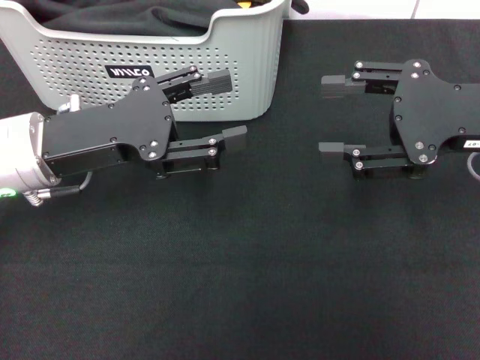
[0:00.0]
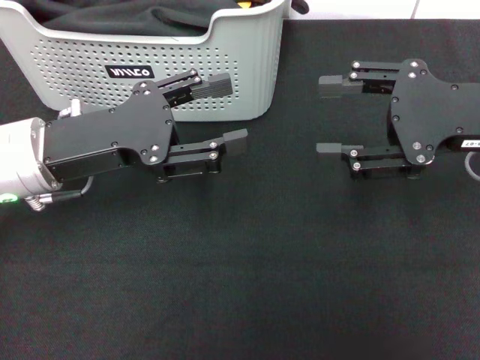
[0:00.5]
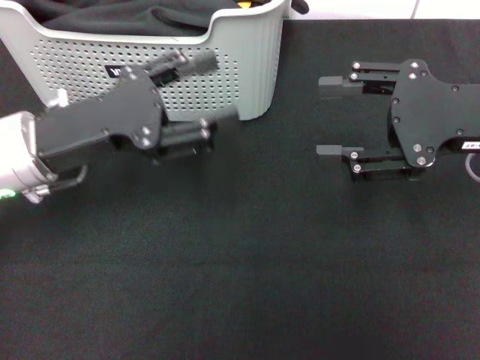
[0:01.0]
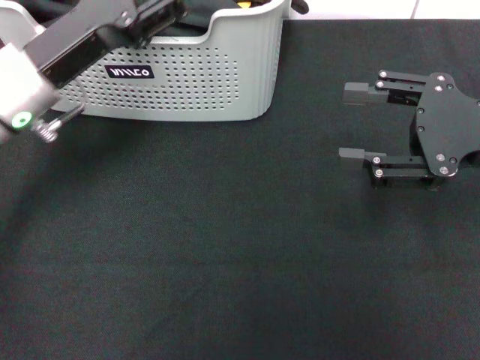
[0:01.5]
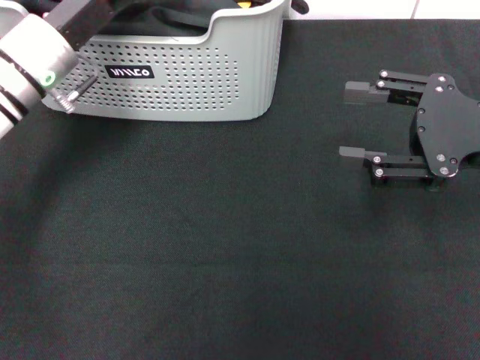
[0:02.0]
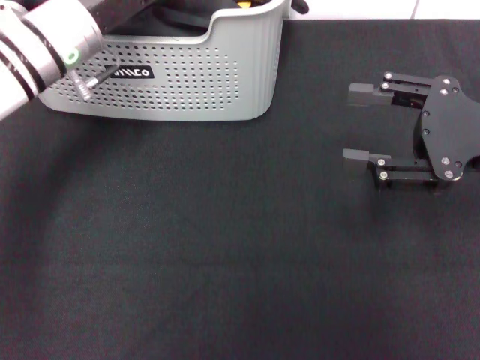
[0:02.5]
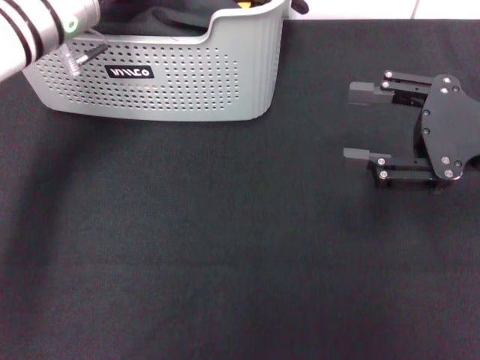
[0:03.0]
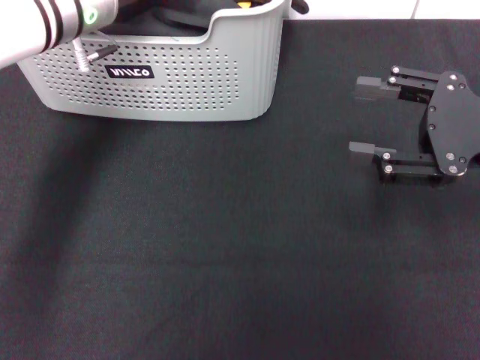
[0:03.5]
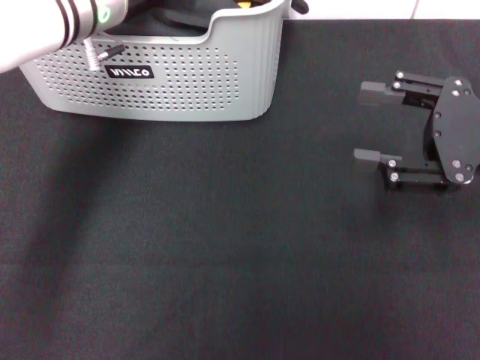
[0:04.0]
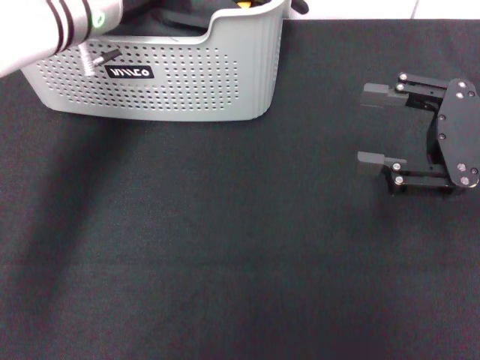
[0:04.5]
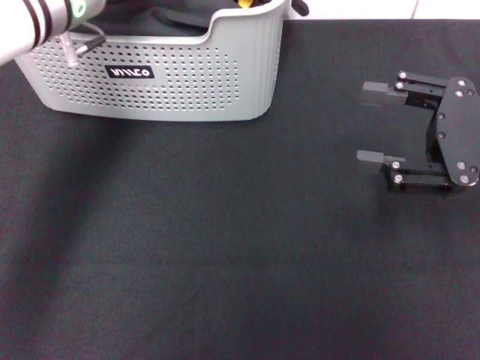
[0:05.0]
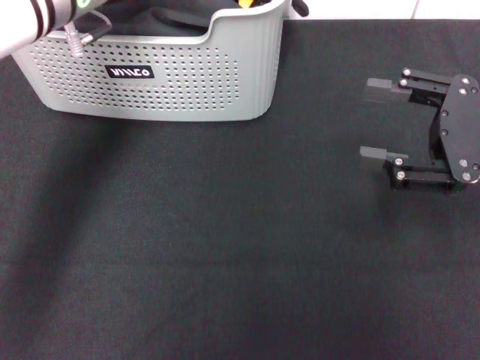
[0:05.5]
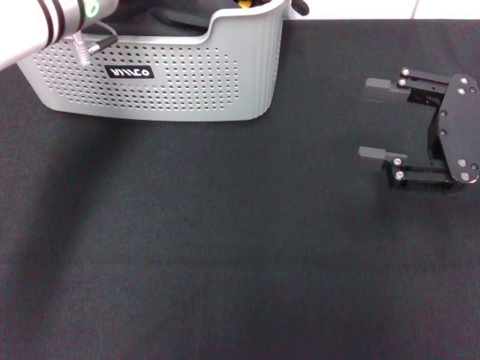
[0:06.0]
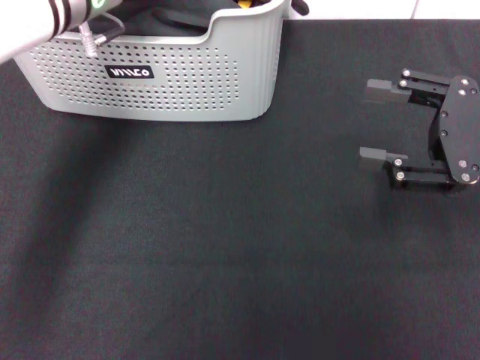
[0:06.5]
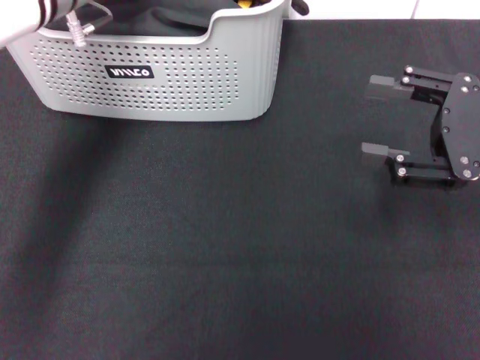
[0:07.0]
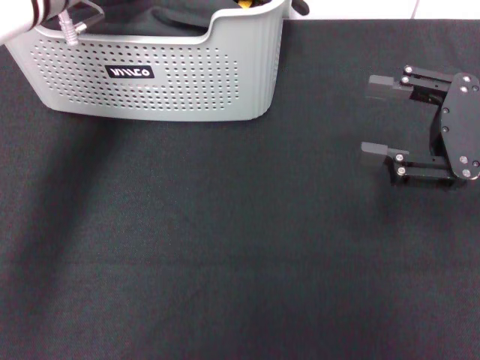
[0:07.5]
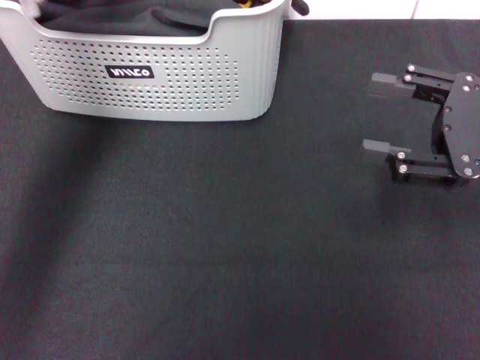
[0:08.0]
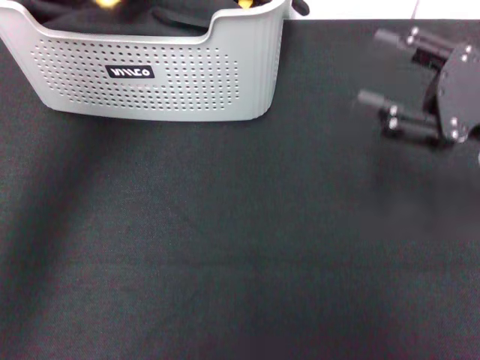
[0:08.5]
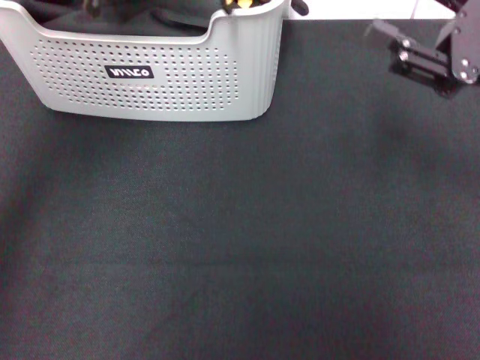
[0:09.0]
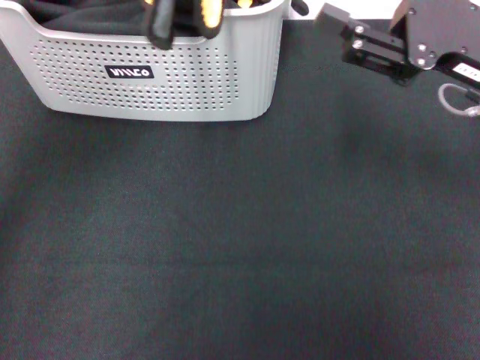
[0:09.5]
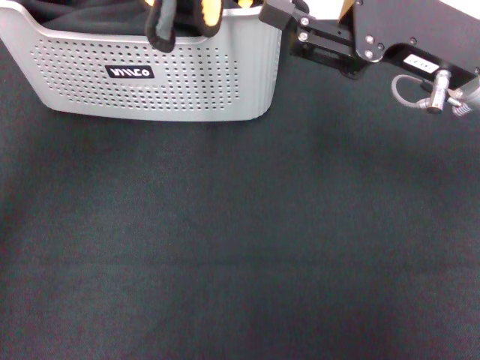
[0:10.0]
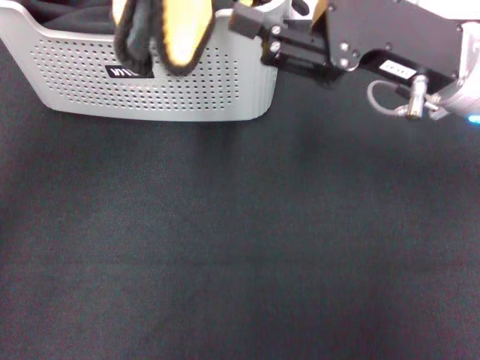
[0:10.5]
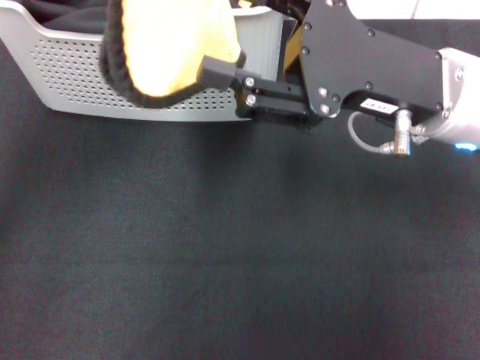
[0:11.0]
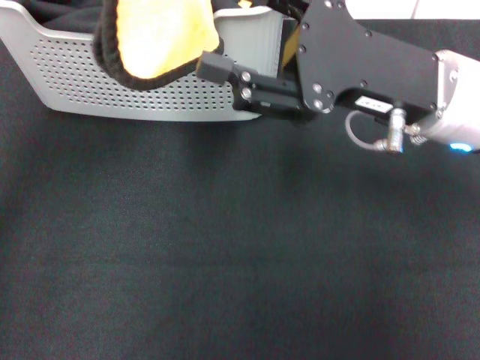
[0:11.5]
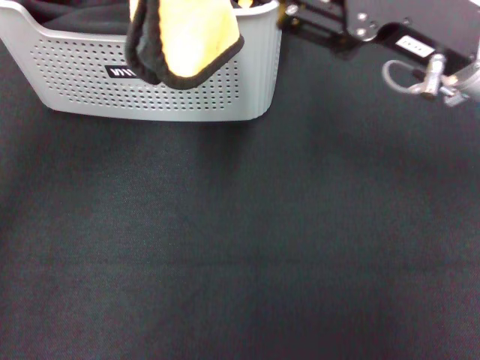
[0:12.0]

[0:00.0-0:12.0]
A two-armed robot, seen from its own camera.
Task of the whole recording: pick up the towel from the storage box and lay it flat on the black tablecloth.
Step, 0:00.0 to 0:08.0: Pick up a towel with the left gripper.
0:00.0 to 0:02.0: The left gripper heads forward, covering roughly 10 cm.
0:02.0 to 0:04.0: The left gripper moves to the right and upward, some 10 cm.
0:04.0 to 0:06.0: The left gripper closes.
0:06.0 to 0:08.0: The left gripper travels upward by about 5 cm.
0:08.0 to 0:10.0: The left gripper goes some 15 cm backward and upward, while the right gripper heads to the left, covering approximately 10 cm.
0:10.0 to 0:12.0: The grippers stay close to where they were, moving slightly.

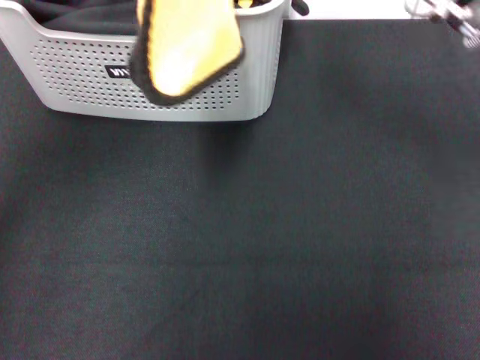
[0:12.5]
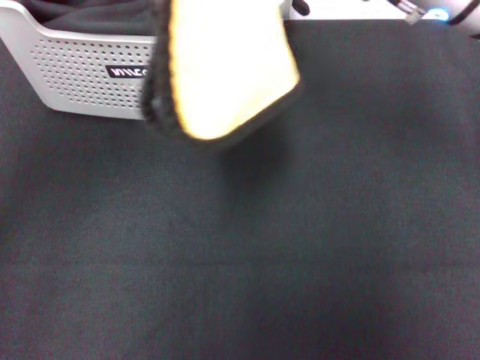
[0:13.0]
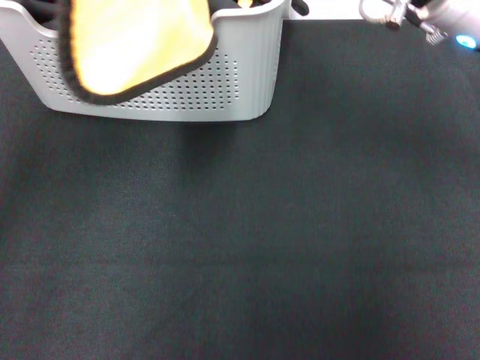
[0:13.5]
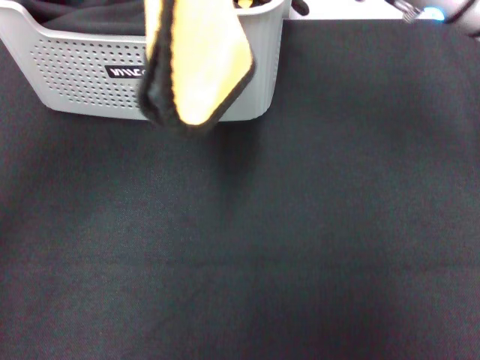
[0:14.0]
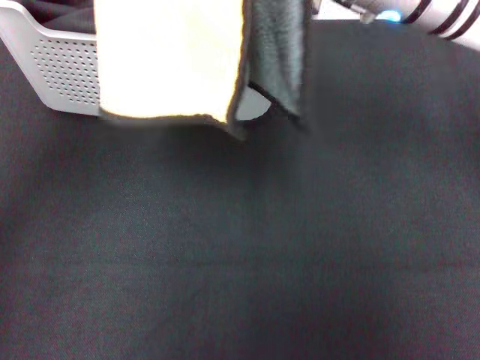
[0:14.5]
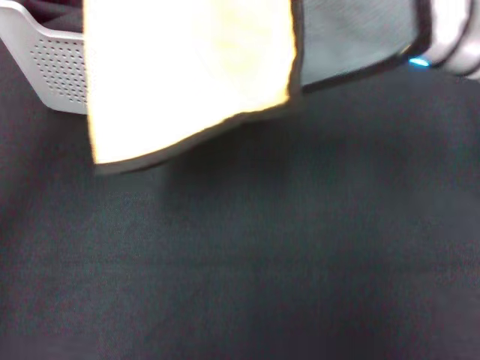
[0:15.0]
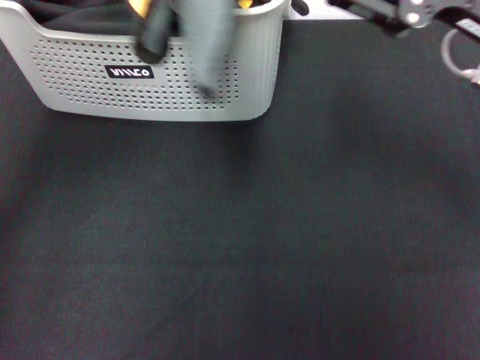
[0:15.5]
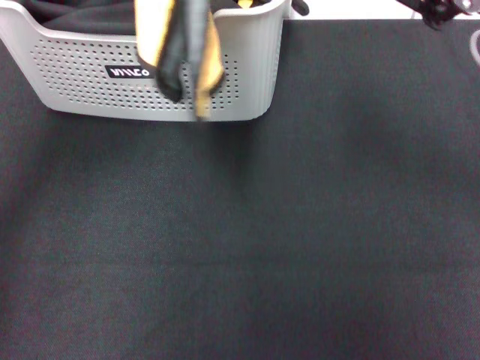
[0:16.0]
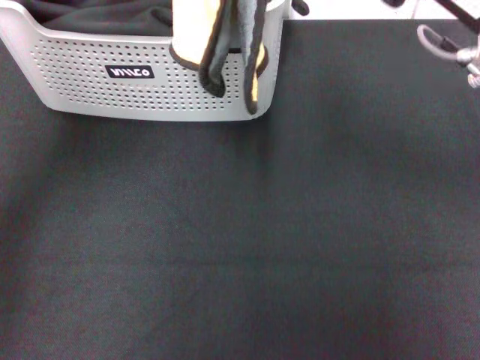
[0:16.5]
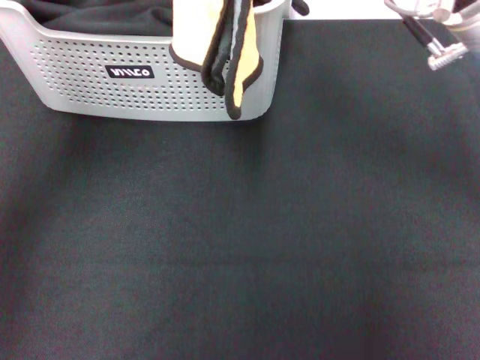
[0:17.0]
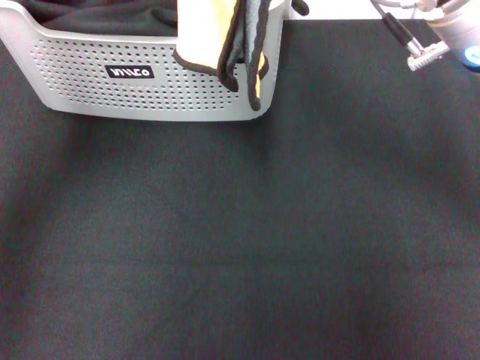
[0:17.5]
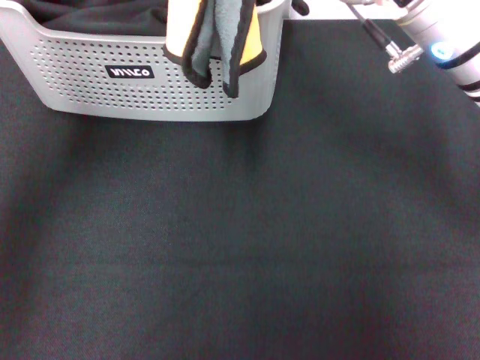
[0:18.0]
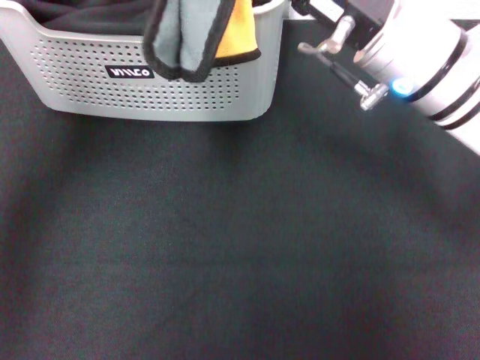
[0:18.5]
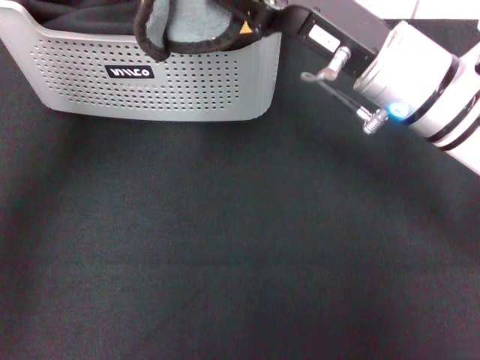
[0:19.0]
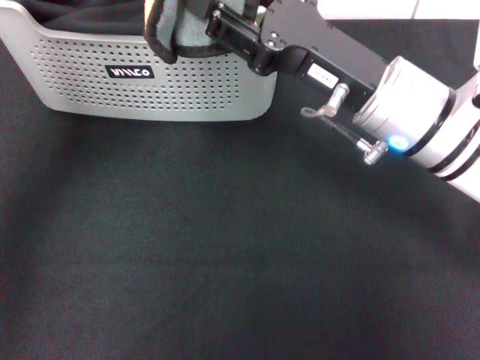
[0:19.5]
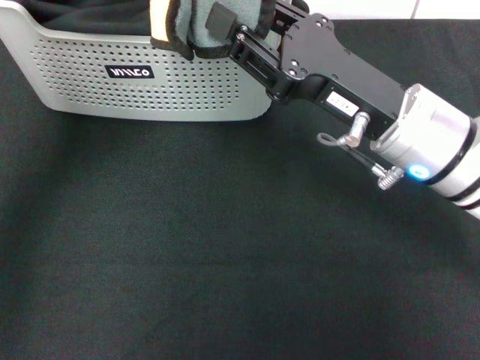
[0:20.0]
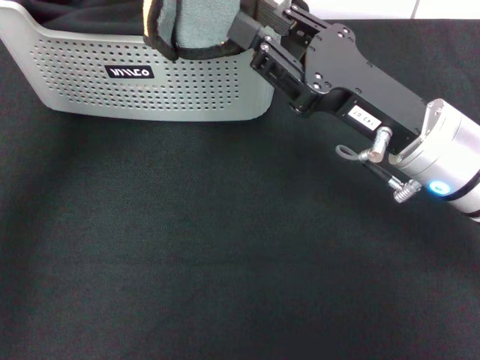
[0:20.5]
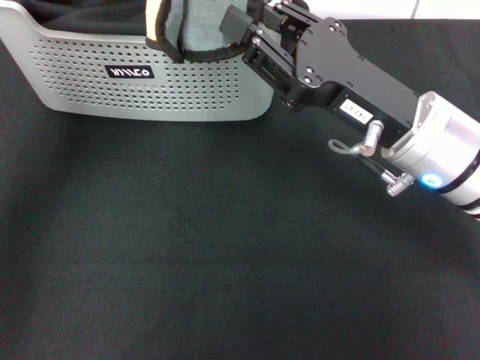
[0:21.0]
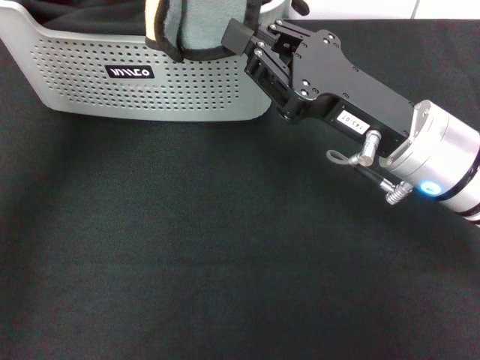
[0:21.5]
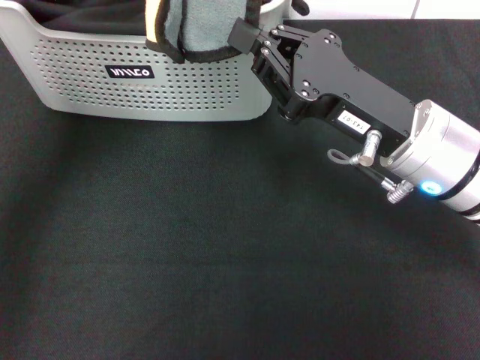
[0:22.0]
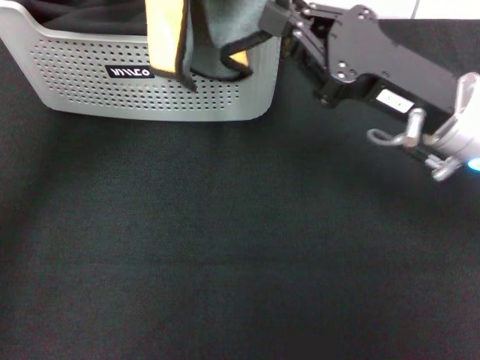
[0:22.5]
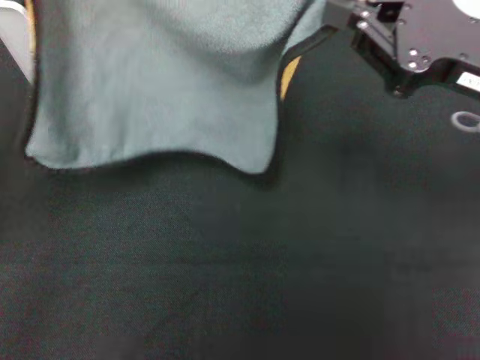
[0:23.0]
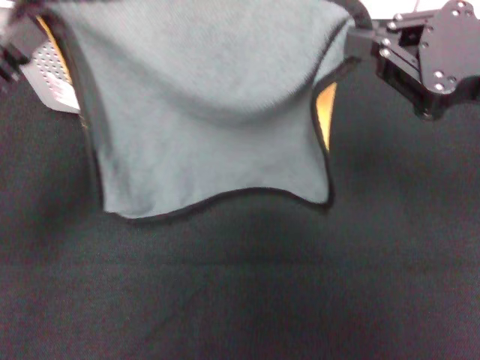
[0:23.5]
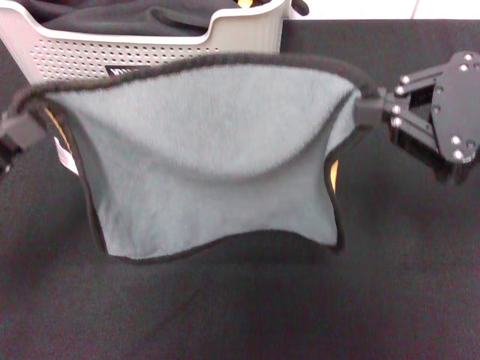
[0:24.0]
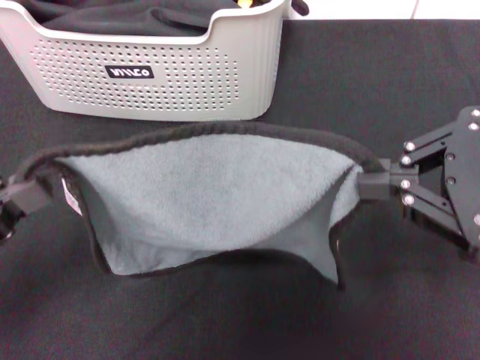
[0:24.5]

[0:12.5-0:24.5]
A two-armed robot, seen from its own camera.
Task of the whole recording: pick up the towel from the storage box and lay it flat on the black tablecloth.
Step, 0:12.5 to 0:22.0: Spread the towel flat with the left gripper.
0:12.5 to 0:14.5: The right gripper travels to the left by about 10 cm.
0:14.5 to 0:16.5: The left gripper moves roughly 5 cm. Meanwhile the right gripper shifts approximately 10 cm to the right and backward.
0:16.5 to 0:18.5: The right gripper shifts about 5 cm to the left.
0:18.5 to 0:20.5: The right gripper travels downward by about 5 cm, and closes up.
0:20.5 to 0:22.5: The right gripper closes up.
0:22.5 to 0:24.5: The left gripper shifts approximately 20 cm backward, downward and to the left. Meanwhile the right gripper goes roughly 15 cm backward, upward and to the right.

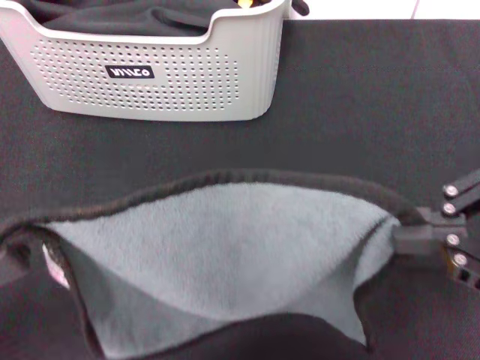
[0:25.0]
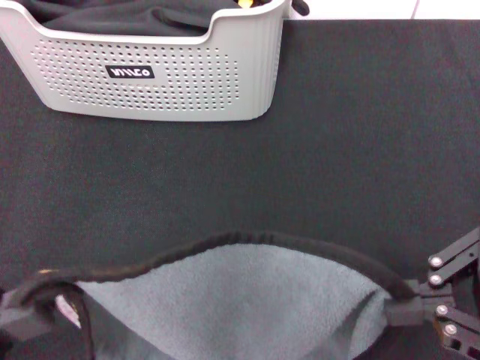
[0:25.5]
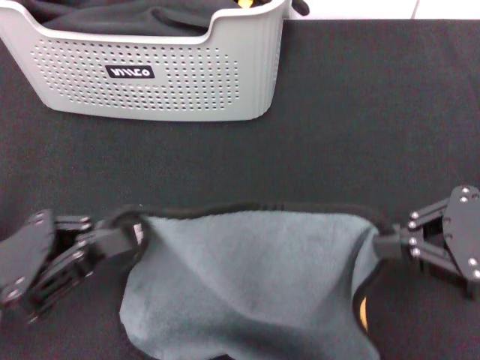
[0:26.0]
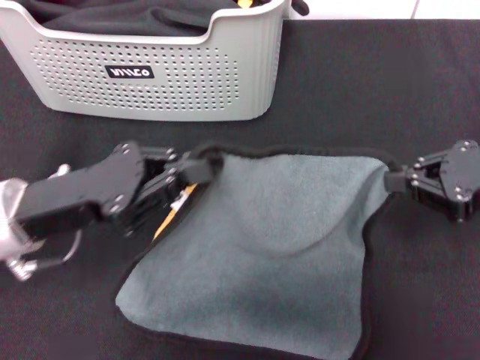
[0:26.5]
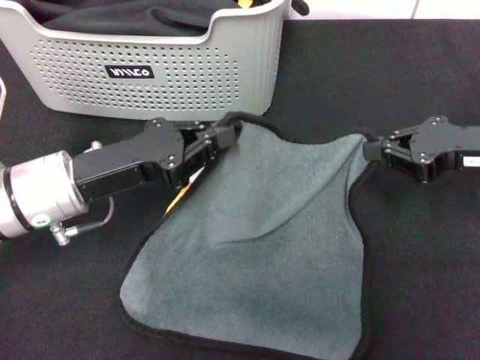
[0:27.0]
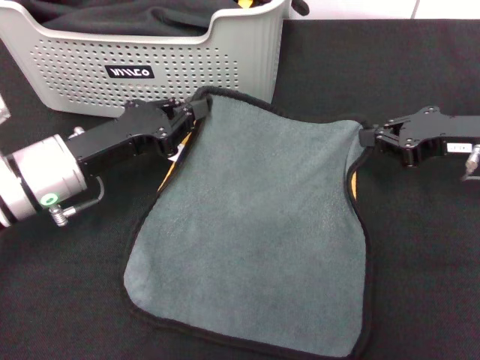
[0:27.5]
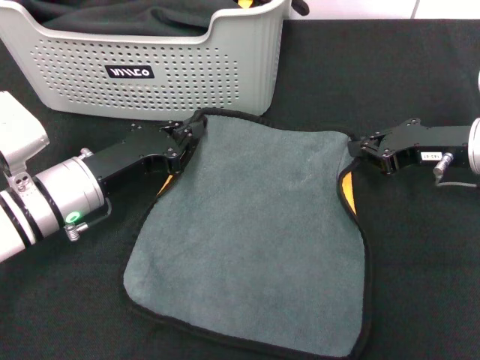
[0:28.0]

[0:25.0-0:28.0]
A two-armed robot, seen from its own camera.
Task of the whole recording: pick up the towel from the storage box and lay it flat on the black tablecloth.
0:25.0 to 0:26.5: The left gripper moves forward, to the right and downward, approximately 15 cm. Meanwhile the right gripper goes roughly 15 cm downward and forward.
0:26.5 to 0:28.0: The left gripper goes approximately 10 cm downward and forward; the right gripper is displaced forward and downward by roughly 10 cm.
